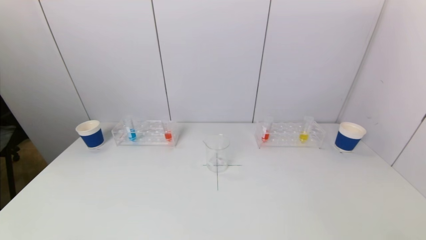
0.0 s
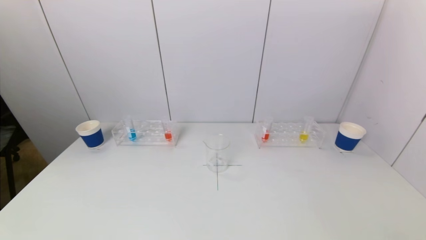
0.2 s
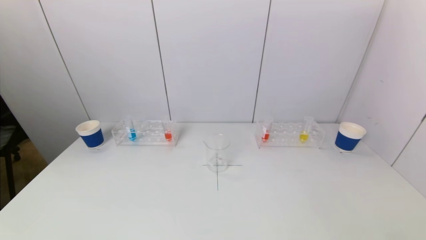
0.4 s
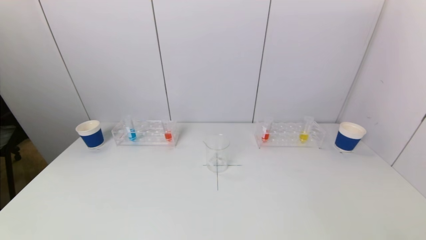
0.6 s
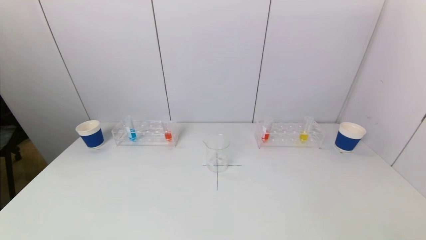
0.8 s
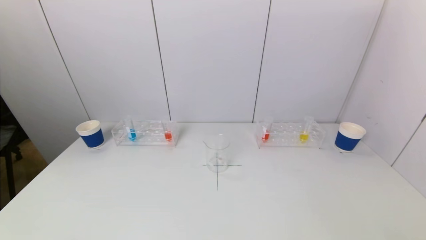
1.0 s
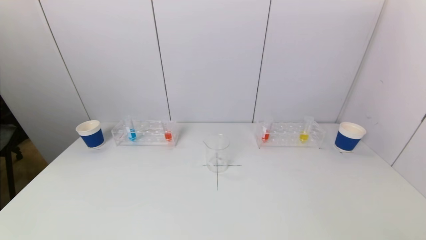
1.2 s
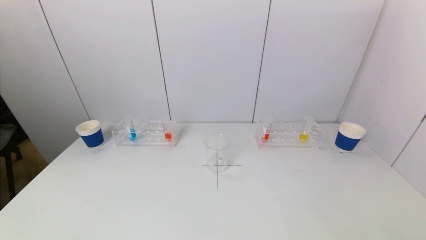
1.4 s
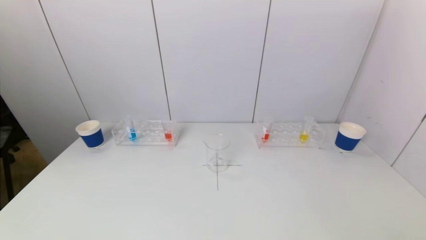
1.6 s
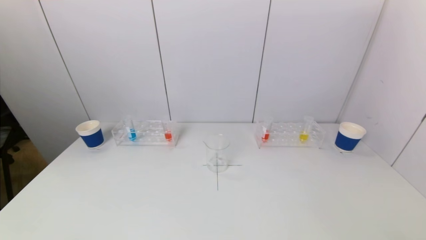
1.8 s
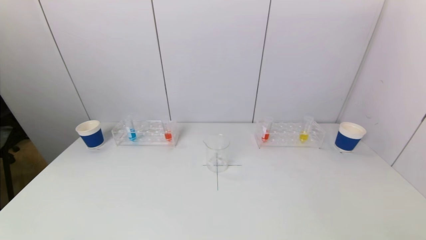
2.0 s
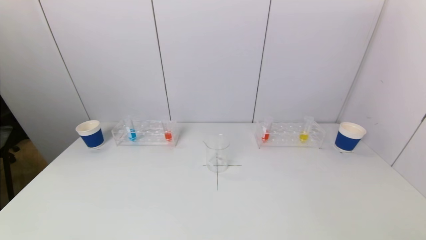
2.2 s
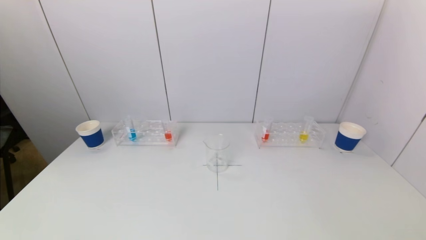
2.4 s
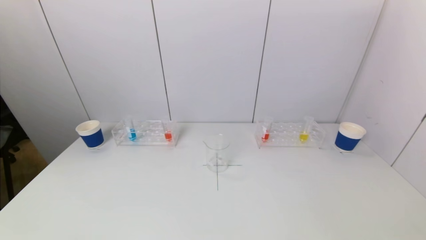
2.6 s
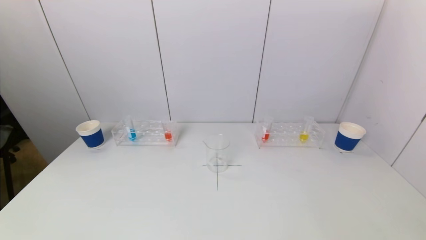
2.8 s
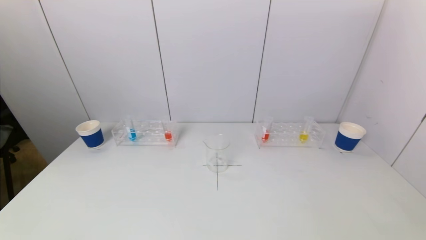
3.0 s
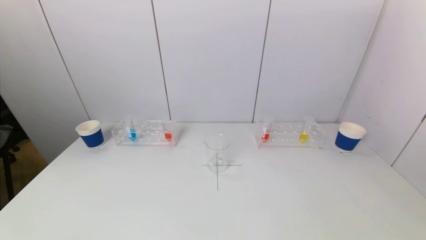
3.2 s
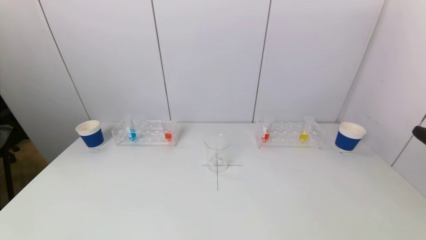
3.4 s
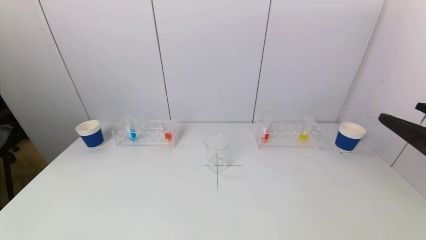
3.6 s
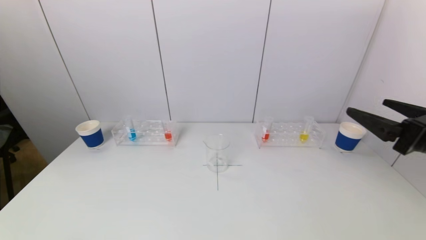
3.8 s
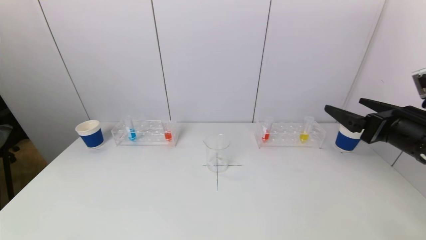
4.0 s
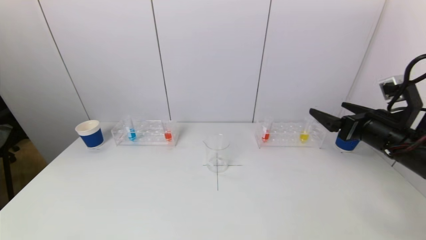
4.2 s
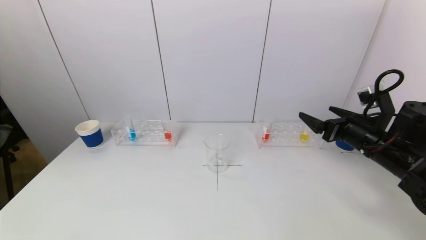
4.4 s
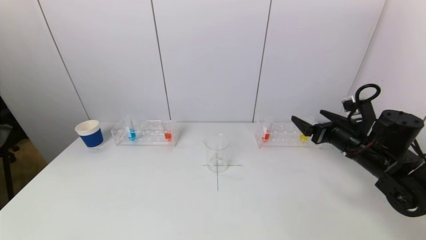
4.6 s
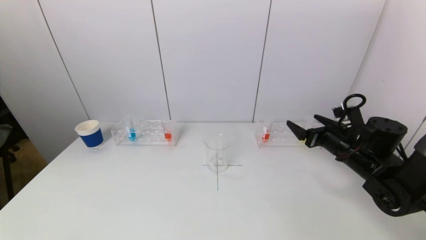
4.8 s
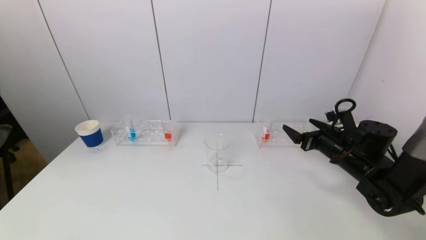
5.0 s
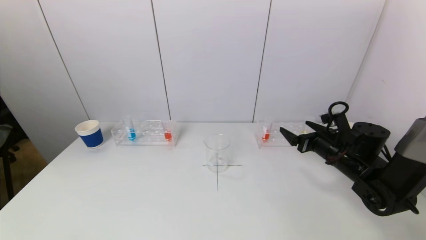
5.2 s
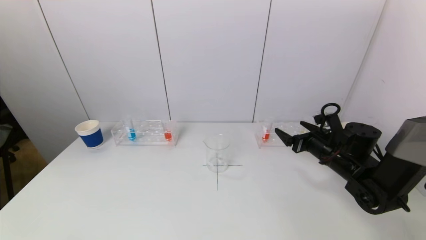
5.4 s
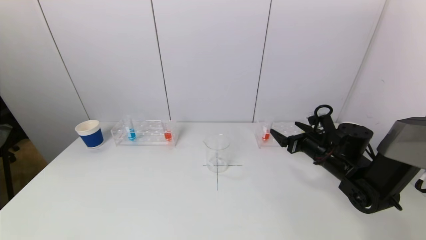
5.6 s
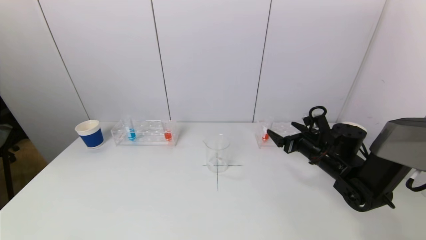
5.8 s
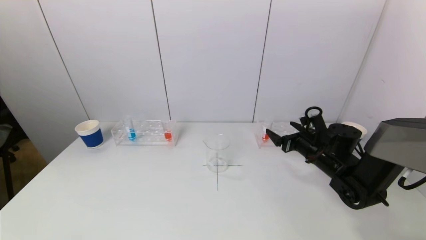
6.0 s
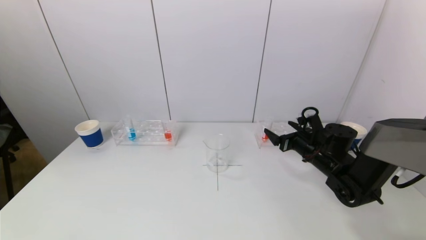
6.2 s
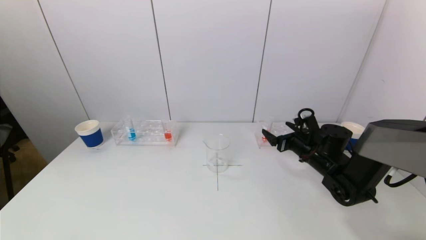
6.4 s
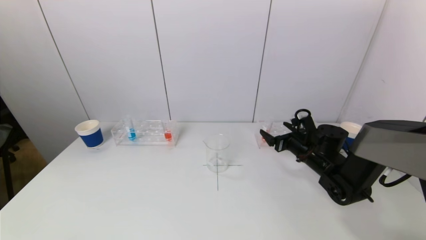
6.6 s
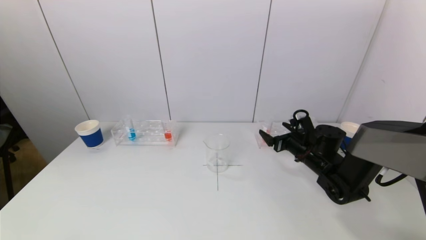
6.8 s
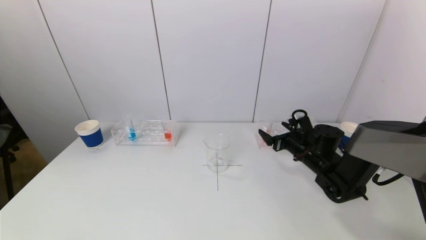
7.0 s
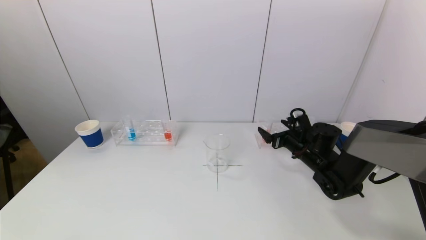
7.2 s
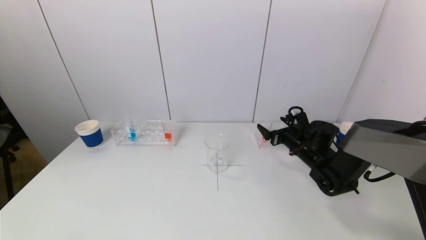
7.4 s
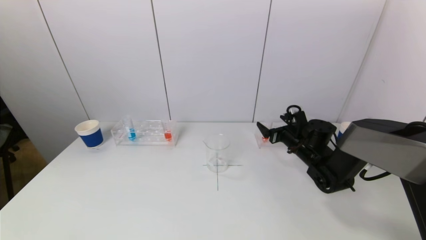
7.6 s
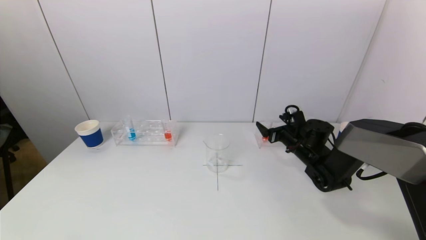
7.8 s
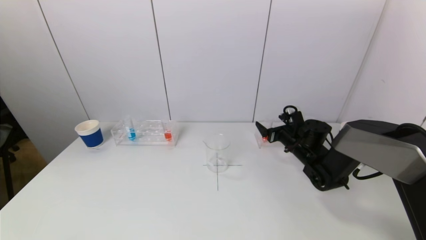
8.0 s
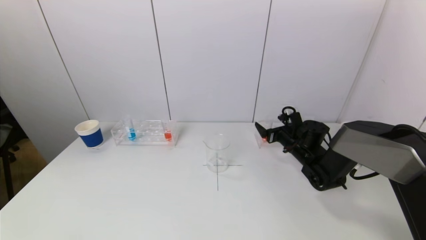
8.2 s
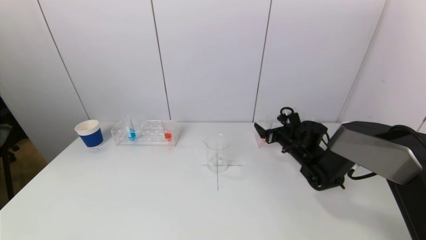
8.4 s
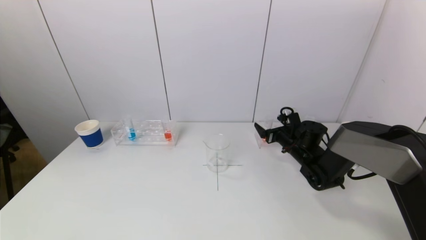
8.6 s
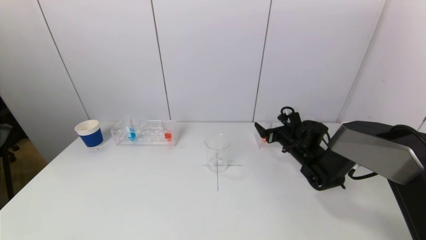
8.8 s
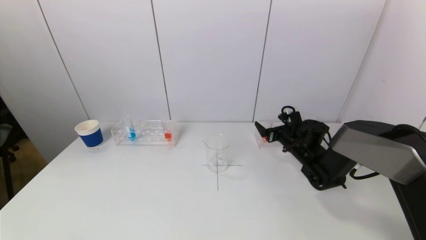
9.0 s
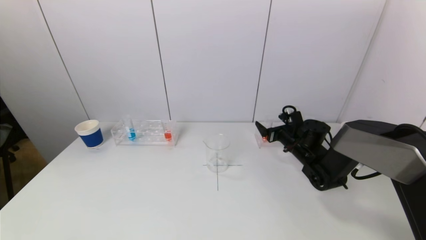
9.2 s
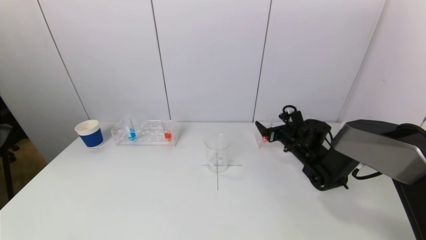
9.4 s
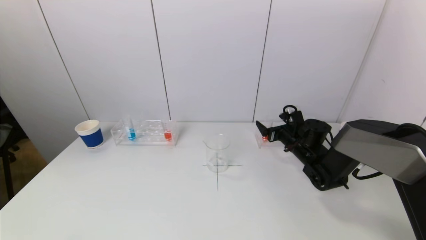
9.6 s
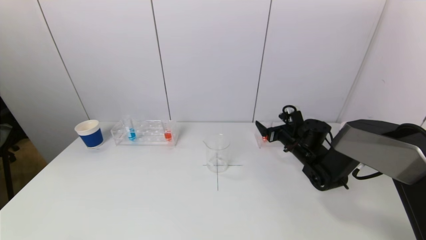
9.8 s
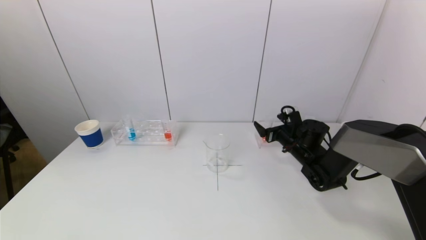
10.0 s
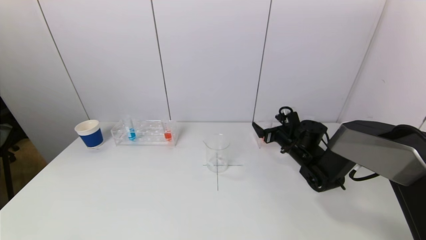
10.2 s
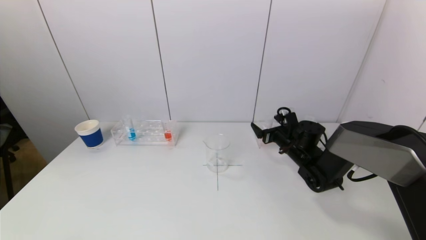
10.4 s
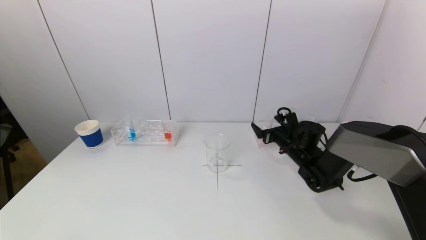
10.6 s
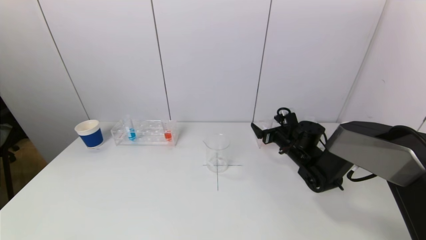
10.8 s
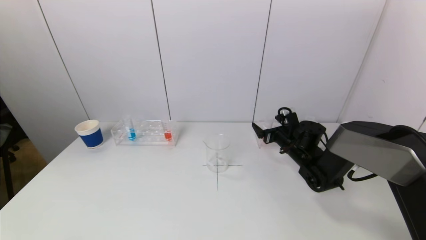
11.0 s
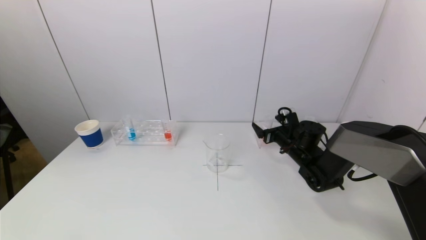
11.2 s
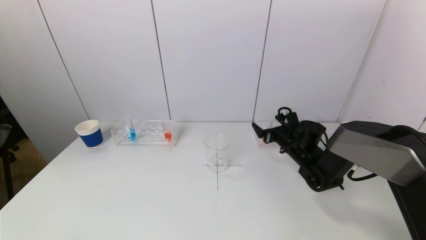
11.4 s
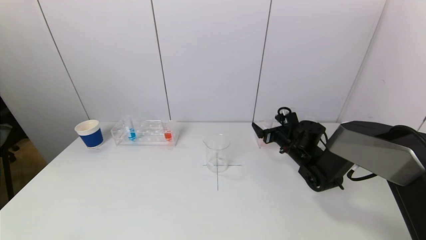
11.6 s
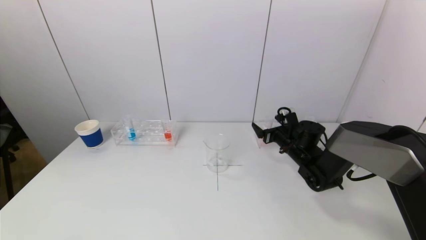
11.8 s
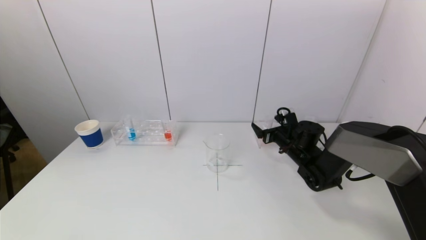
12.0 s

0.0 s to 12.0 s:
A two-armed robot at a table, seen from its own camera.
Task of the whole recording: pick up a test tube with pigment on left test tube rack and a test tube with pigment on right test tube rack by grippers and pour them into the beaker.
0.0 to 1.6 s: The two grippers keep their place.
3.0 to 4.4 s: The right gripper travels forward by roughly 30 cm.
4.4 to 6.0 s: The right gripper shifts approximately 10 cm downward and forward.
6.0 to 7.6 s: The right gripper travels forward by approximately 5 cm.
7.6 to 9.0 s: The grippers stay close to where they were, moving slightly.
9.0 to 12.0 s: Neither gripper changes place.

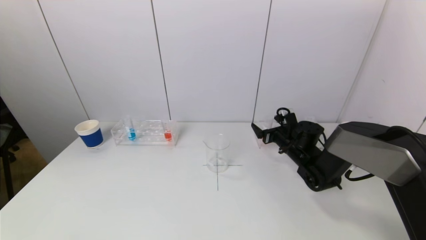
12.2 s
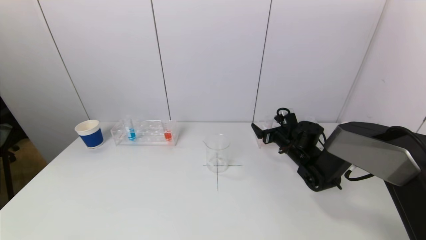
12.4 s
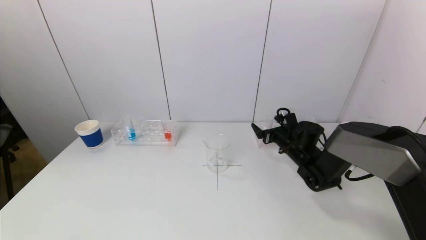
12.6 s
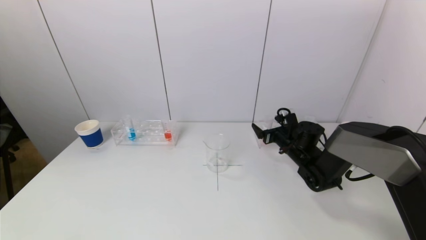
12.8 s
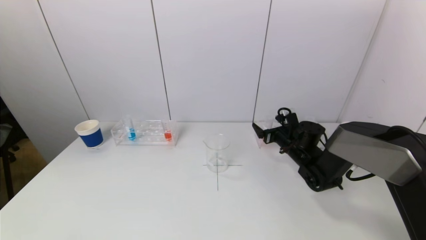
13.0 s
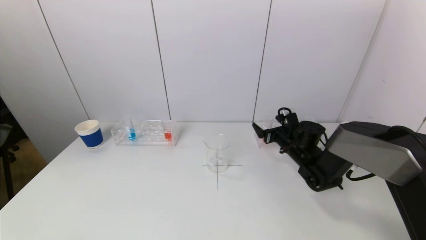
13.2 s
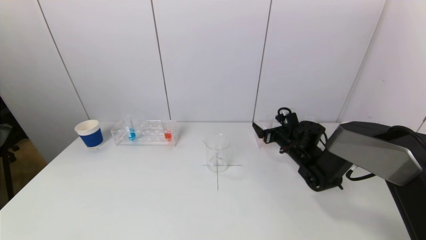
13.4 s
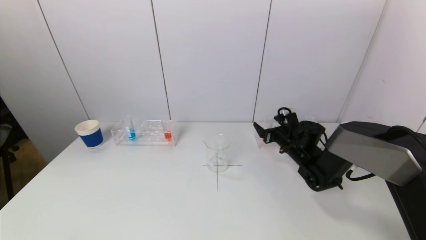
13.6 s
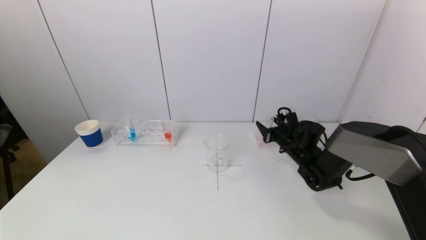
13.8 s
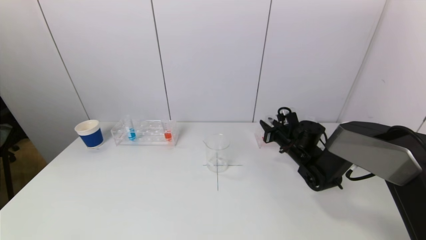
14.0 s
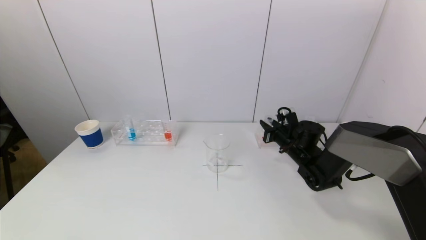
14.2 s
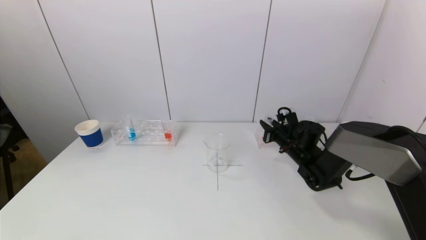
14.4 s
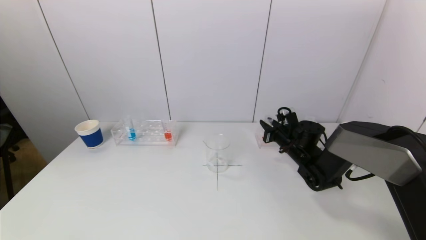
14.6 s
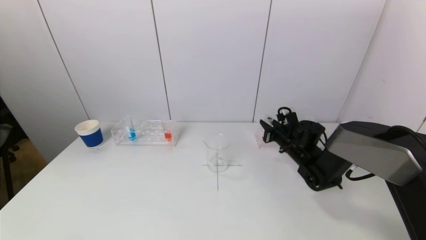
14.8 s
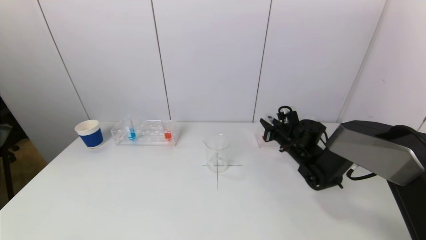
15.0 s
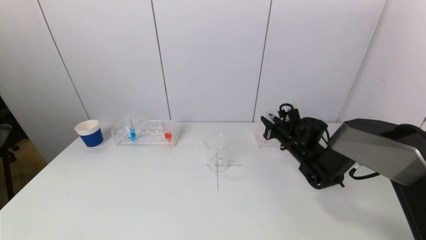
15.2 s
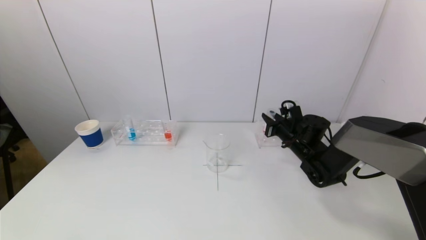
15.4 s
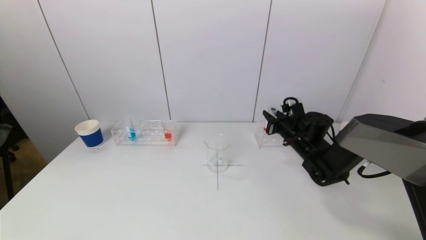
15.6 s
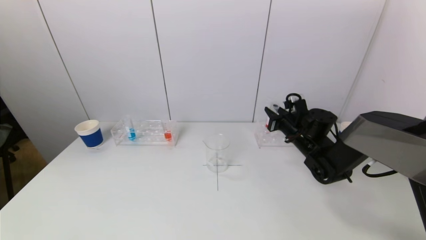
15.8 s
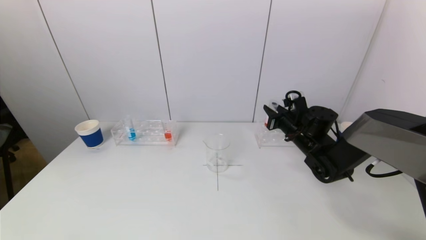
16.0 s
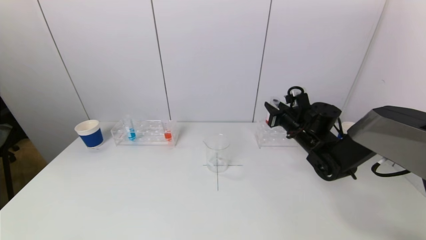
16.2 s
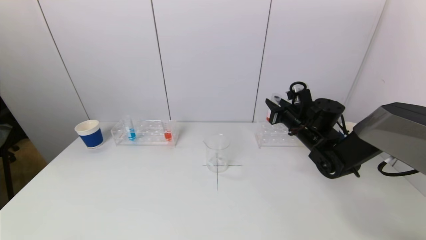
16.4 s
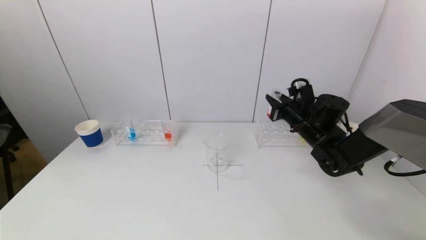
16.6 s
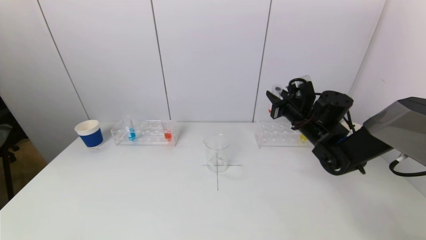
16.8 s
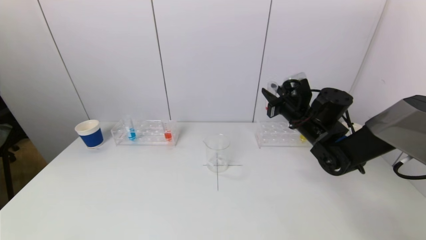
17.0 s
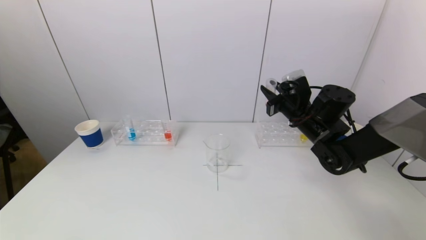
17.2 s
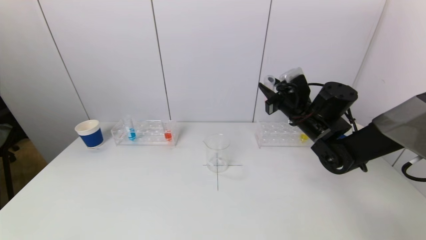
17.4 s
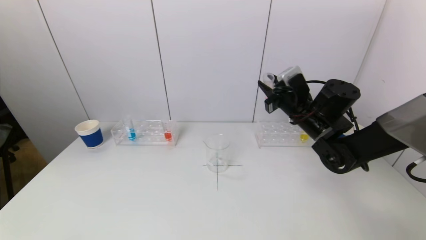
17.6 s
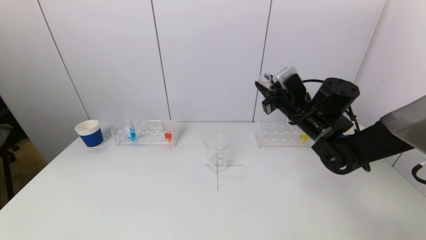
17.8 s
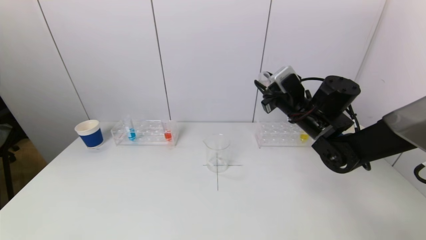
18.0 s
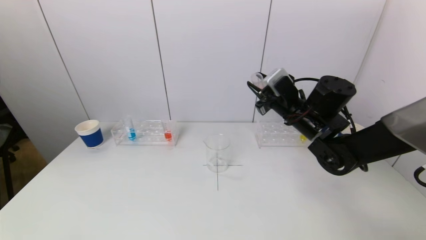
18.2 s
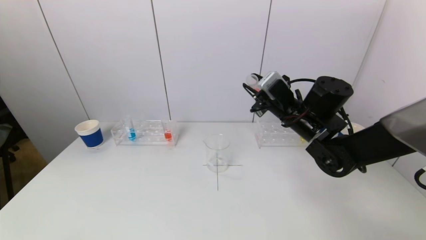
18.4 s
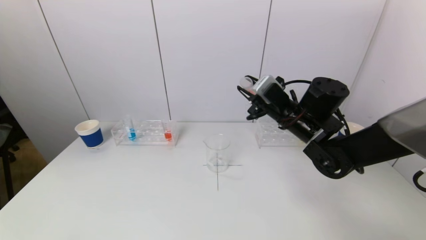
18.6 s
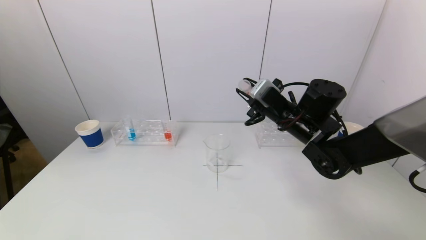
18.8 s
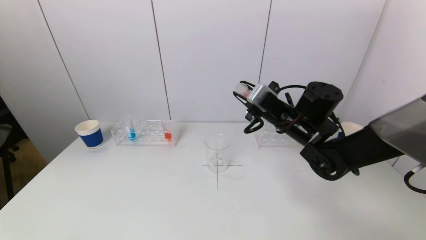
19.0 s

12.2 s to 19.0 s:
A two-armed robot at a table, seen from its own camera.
Task of the whole recording: pick up a test tube with pigment on left test tube rack and a test tube with pigment on right test tube rack by grippers and pour them into the beaker.
12.2 to 13.6 s: Both grippers stay put.
13.6 to 15.0 s: The right gripper closes up.
15.0 to 16.2 s: The right gripper is displaced upward by roughly 5 cm.
16.2 to 17.6 s: The right gripper heads upward, covering roughly 10 cm.
